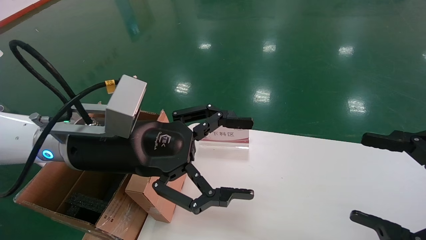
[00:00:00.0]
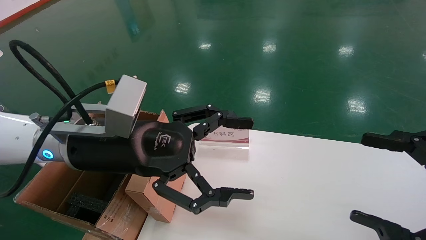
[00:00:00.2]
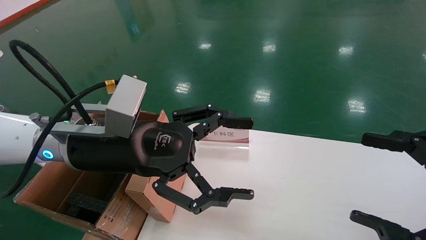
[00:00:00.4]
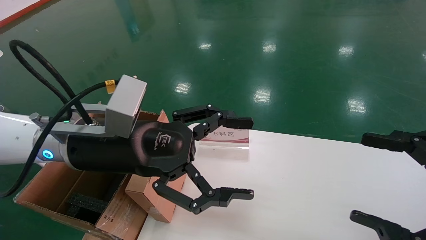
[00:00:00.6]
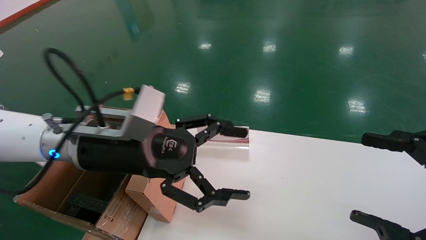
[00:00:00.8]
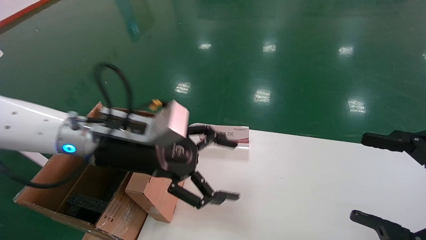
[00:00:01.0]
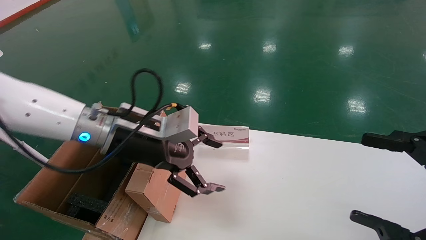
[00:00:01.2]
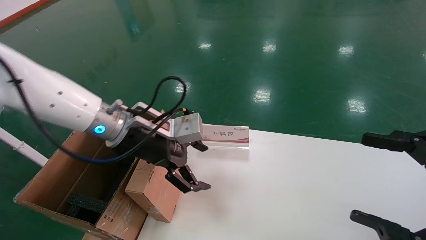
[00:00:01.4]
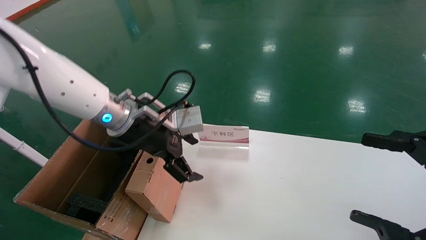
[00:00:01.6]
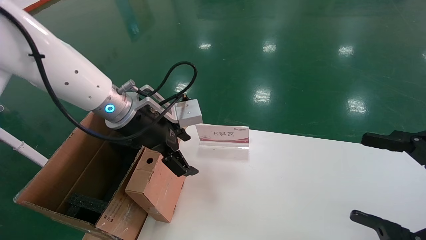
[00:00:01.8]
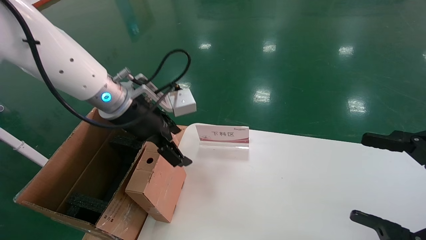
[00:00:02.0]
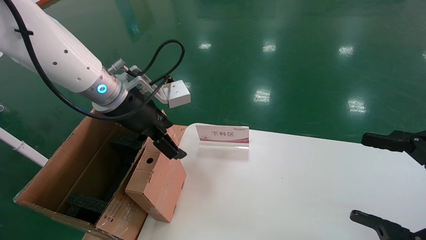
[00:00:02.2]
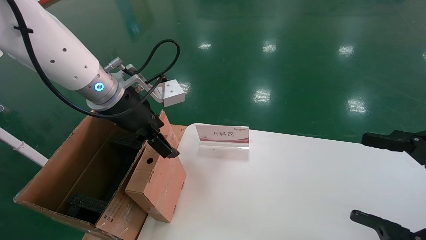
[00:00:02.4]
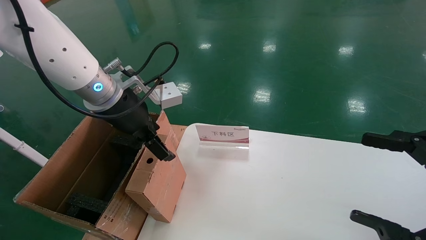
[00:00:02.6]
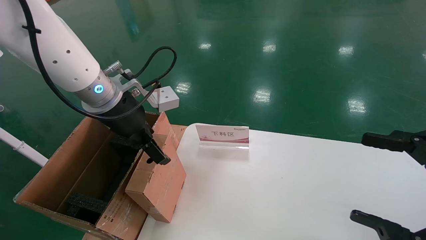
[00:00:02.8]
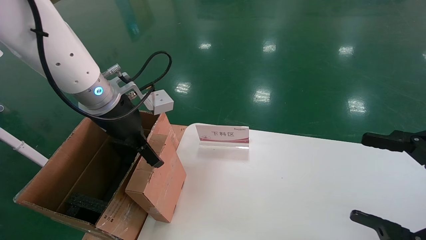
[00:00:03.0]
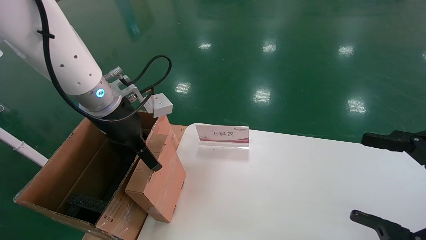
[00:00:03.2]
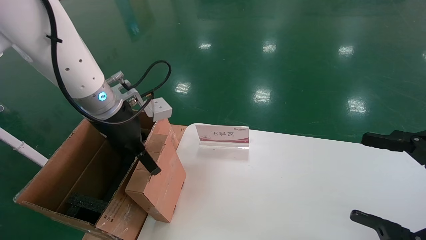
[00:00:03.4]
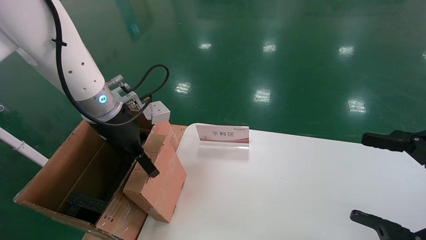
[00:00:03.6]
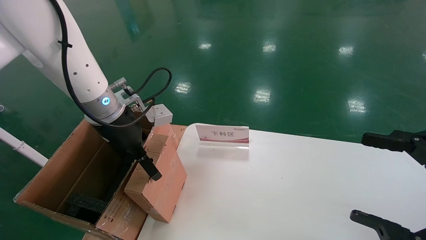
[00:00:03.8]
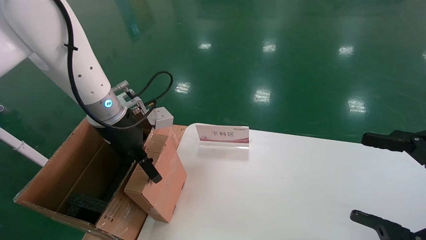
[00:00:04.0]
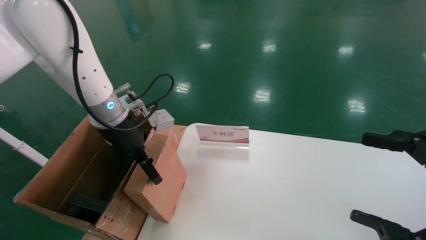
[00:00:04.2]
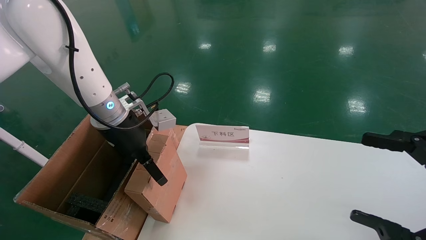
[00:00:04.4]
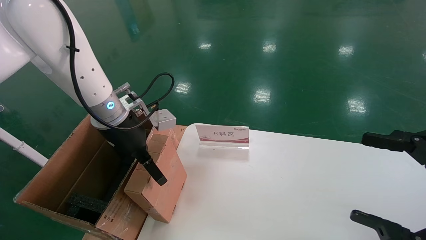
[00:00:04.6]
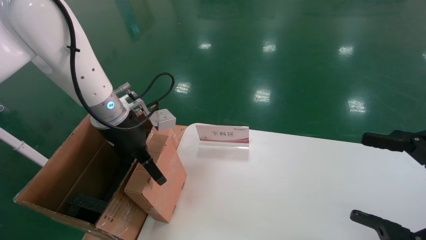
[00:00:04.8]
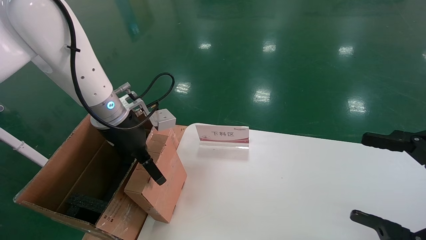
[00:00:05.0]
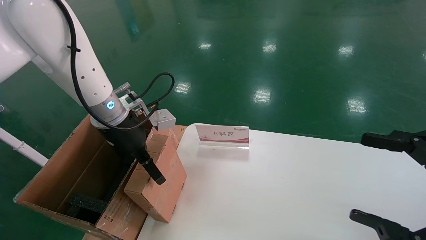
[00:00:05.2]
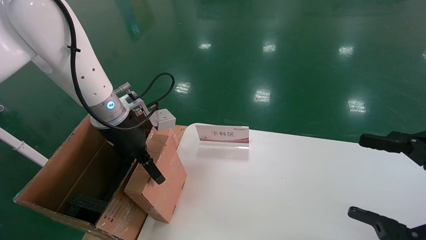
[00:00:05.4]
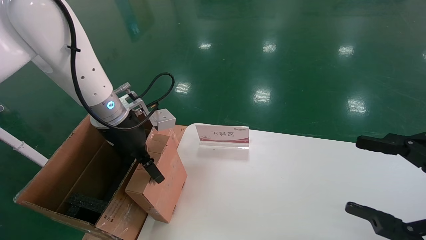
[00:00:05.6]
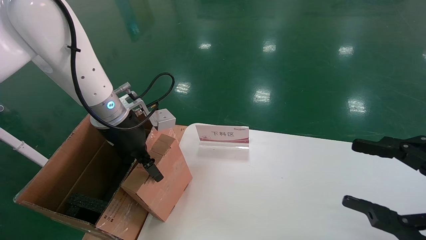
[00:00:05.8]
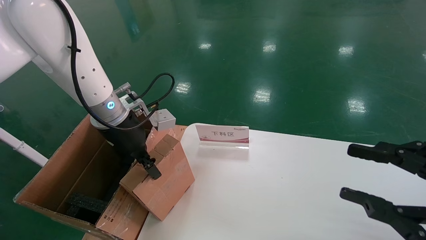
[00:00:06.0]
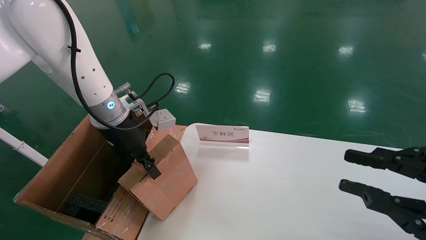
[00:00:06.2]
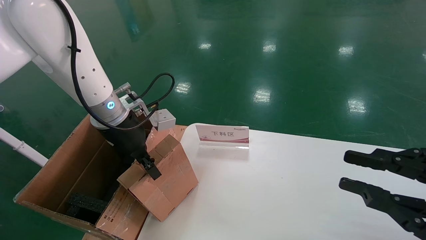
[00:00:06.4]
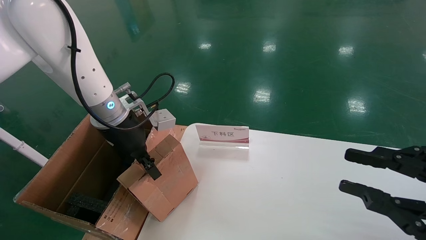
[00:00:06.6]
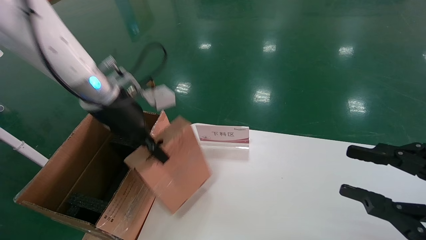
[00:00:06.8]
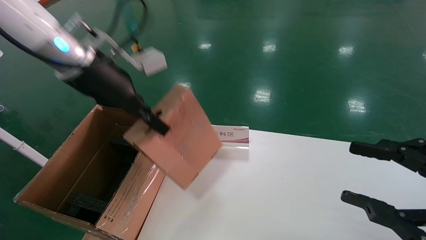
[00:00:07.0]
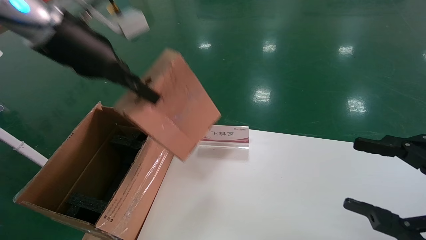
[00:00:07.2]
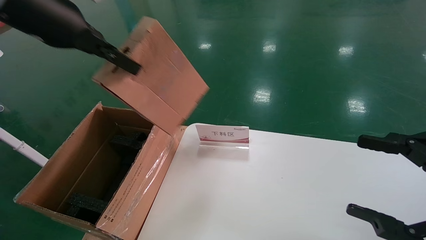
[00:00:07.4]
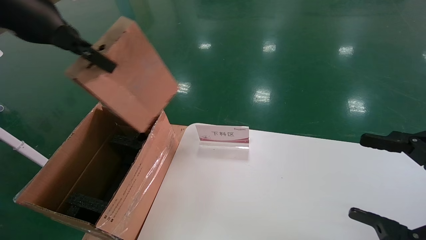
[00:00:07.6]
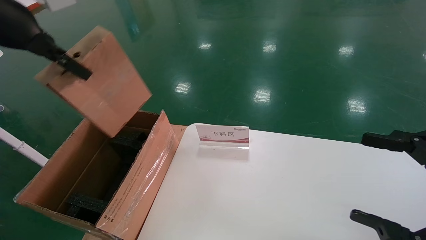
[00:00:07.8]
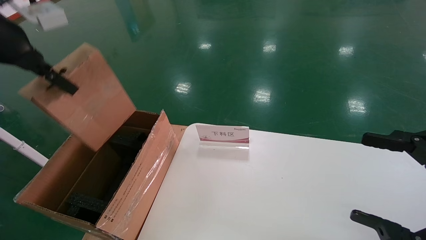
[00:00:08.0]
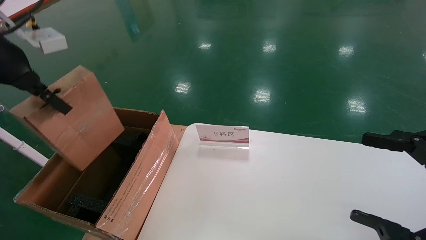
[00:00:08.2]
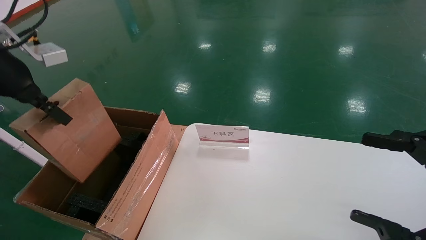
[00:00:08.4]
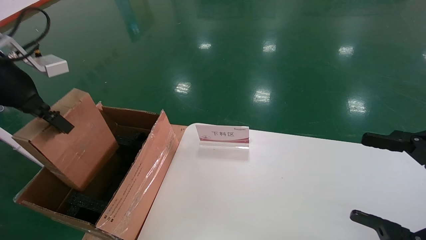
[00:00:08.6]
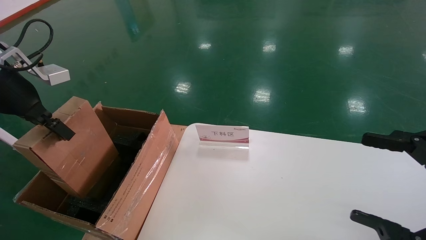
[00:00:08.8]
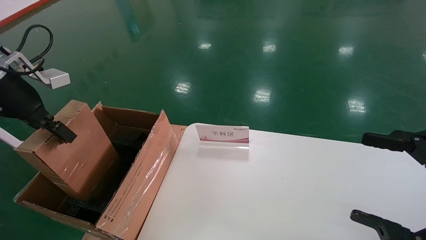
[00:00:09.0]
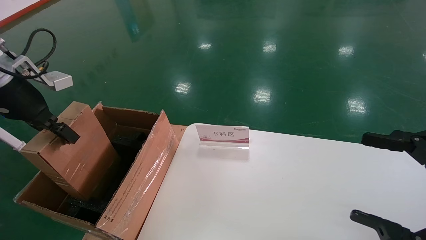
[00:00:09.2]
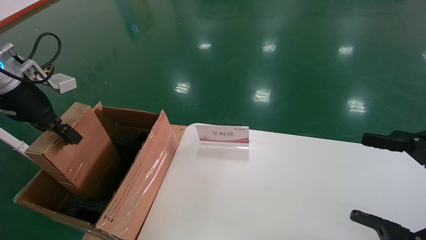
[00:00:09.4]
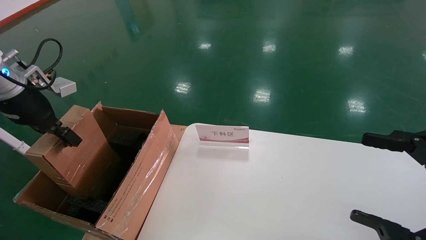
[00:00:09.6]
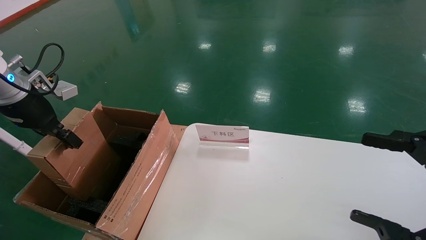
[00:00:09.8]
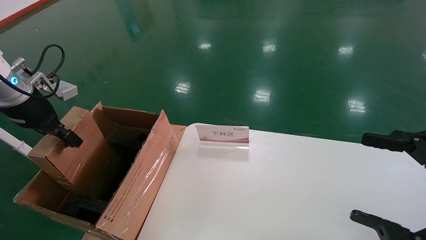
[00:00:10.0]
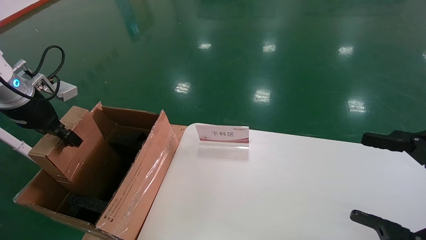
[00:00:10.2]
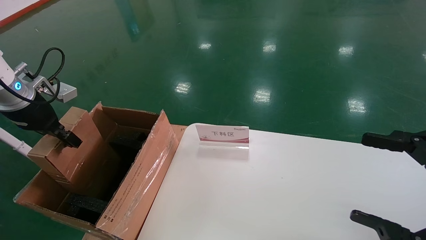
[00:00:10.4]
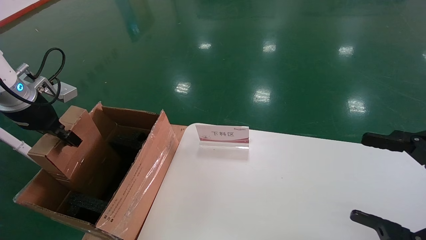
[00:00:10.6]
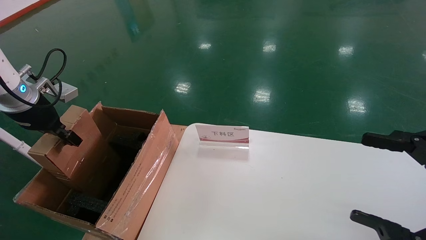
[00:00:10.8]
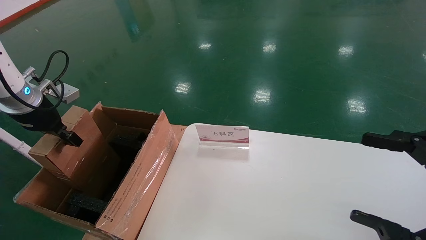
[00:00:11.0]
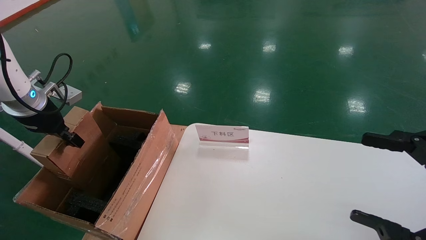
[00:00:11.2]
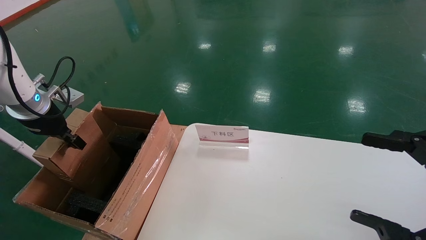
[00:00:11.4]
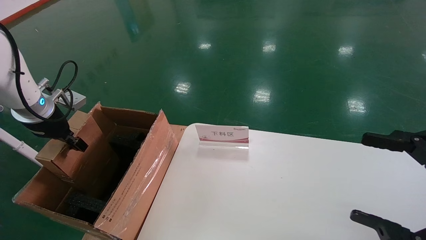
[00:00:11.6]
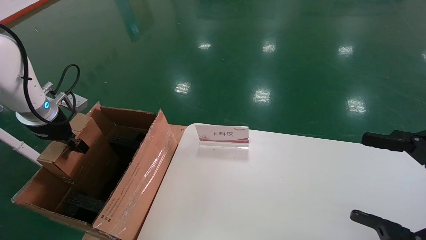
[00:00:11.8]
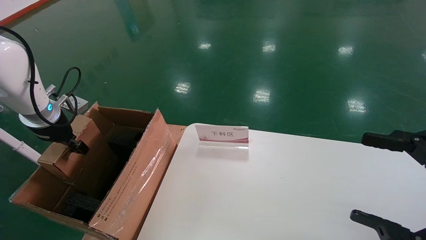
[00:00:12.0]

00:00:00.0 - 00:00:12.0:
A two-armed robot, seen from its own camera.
Task of the whole recording: pick up the small cardboard box and load it into the large cardboard box.
Step, 00:00:01.0 - 00:00:06.4: Pick up the mouse and power cord box.
00:00:00.0 - 00:00:01.6: The left gripper shifts roughly 10 cm forward.
00:00:03.0 - 00:00:04.4: The grippers stay close to where they were, moving slightly.
00:00:04.4 - 00:00:06.0: The right gripper closes; the left gripper closes.
00:00:06.0 - 00:00:07.6: The right gripper opens up, while the left gripper shifts approximately 25 cm upward, to the left and backward, and closes.
00:00:07.6 - 00:00:09.0: The left gripper is displaced downward and to the left by roughly 15 cm.
00:00:09.0 - 00:00:10.4: The left gripper travels downward by some 5 cm.
00:00:10.4 - 00:00:12.0: The left gripper is displaced downward by approximately 5 cm.

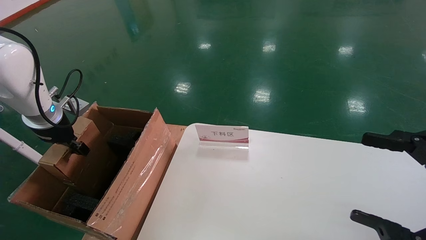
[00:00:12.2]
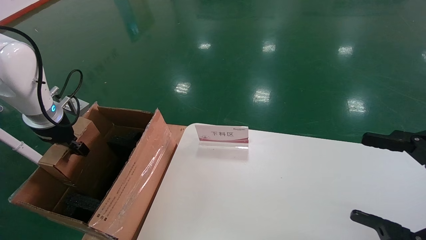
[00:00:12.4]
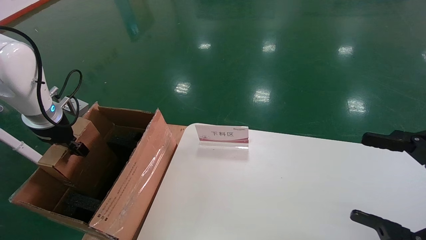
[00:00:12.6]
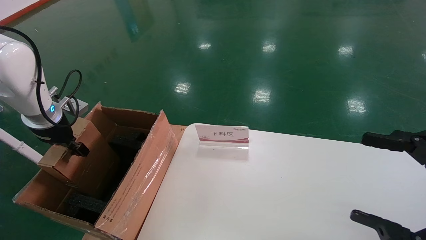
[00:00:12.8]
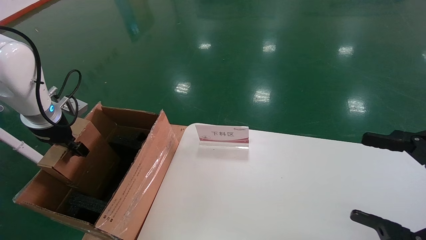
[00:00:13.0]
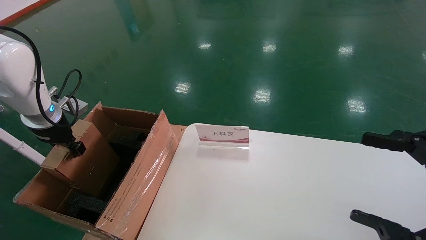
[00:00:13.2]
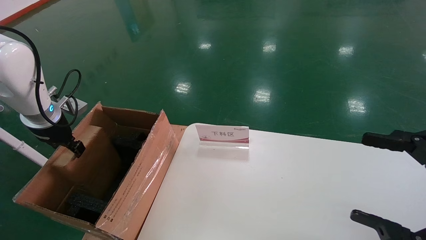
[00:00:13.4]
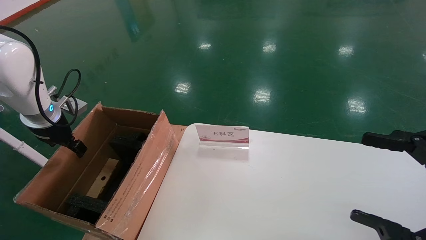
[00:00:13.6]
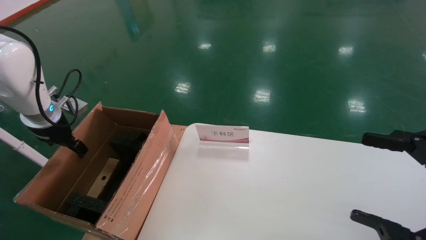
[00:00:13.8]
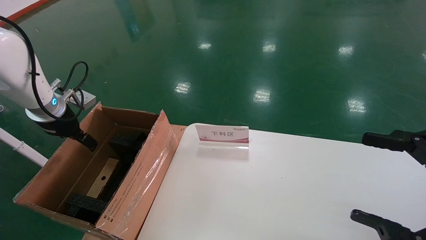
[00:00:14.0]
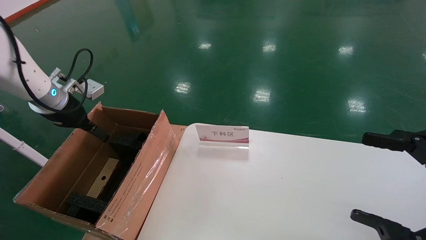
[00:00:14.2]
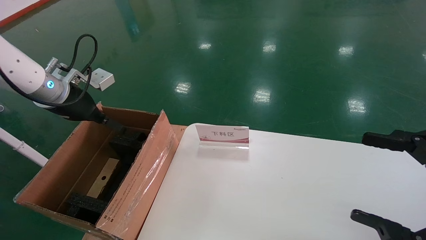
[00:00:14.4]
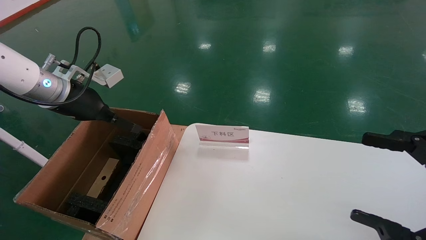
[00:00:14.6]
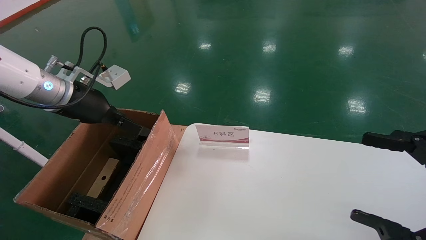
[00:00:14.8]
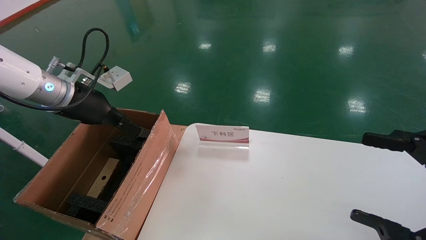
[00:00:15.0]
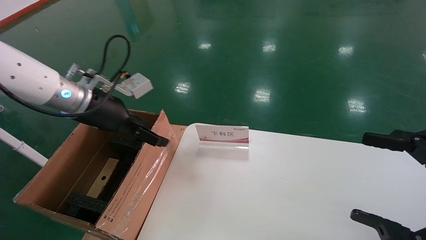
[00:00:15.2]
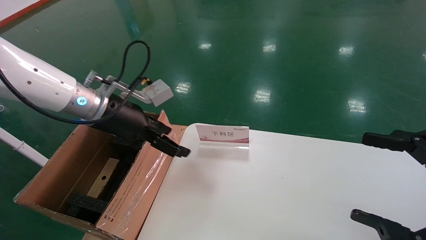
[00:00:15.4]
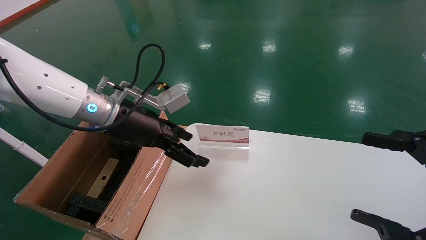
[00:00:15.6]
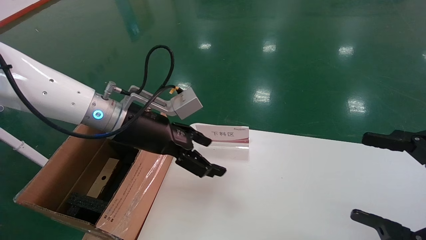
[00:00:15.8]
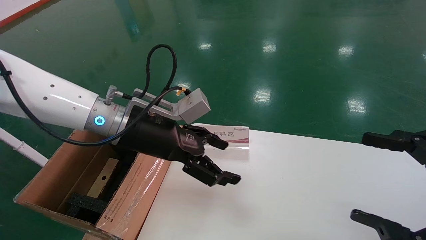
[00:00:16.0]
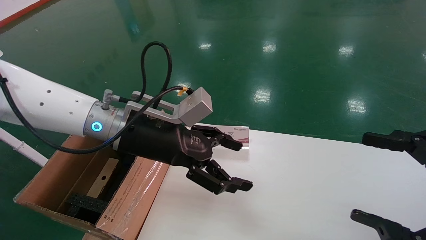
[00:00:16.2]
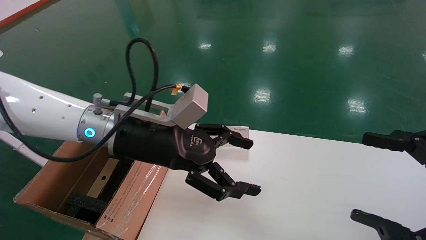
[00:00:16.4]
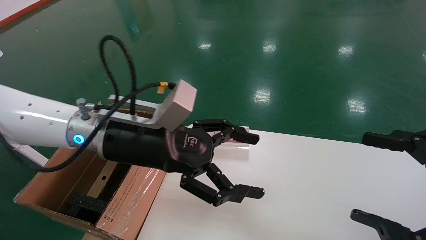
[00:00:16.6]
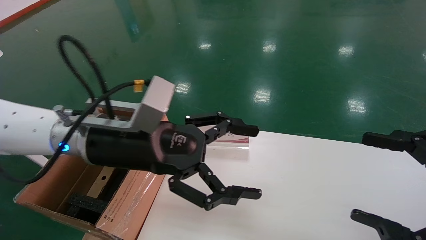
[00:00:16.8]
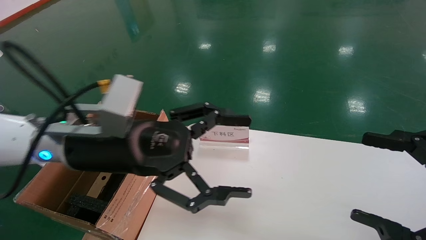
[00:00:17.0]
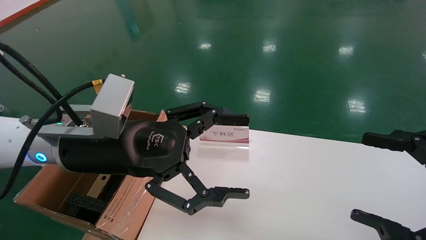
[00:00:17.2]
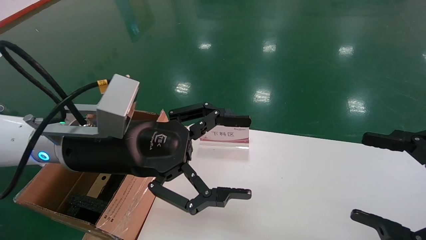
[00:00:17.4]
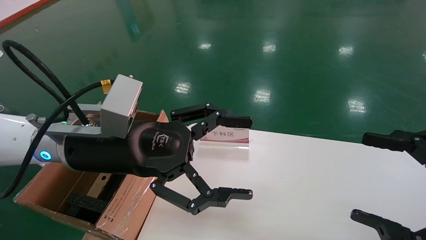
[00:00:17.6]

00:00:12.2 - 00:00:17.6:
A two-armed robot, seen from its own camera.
Task of the whole recording: pick up the small cardboard box and load it into the large cardboard box.
00:00:12.2 - 00:00:13.6: The left gripper opens.
00:00:13.6 - 00:00:15.0: The left gripper shifts some 15 cm to the right and upward.
00:00:15.0 - 00:00:16.2: The left gripper goes roughly 15 cm to the right.
00:00:16.2 - 00:00:17.6: The left gripper is displaced backward by some 5 cm.
